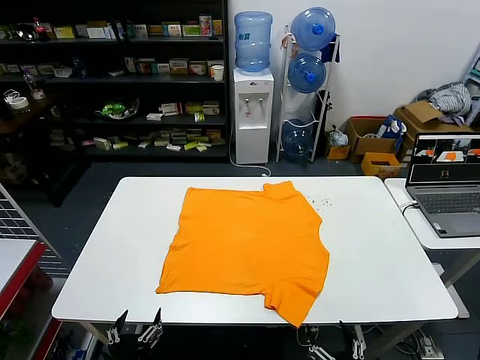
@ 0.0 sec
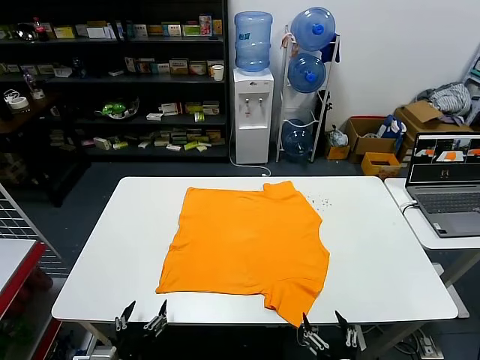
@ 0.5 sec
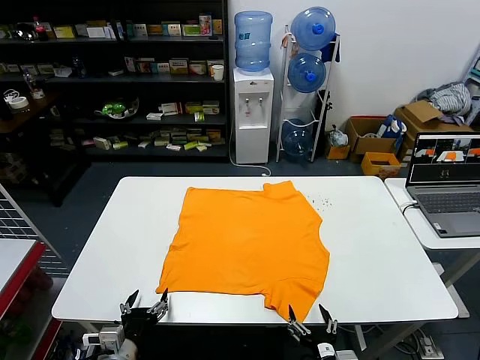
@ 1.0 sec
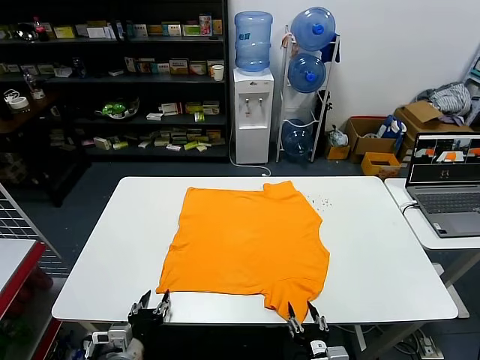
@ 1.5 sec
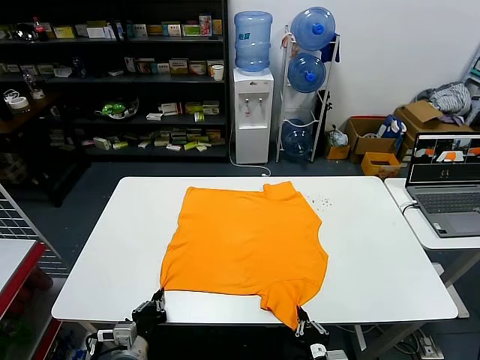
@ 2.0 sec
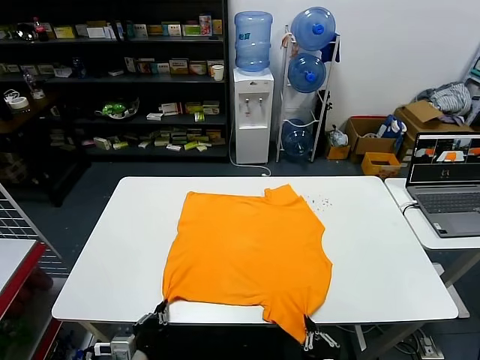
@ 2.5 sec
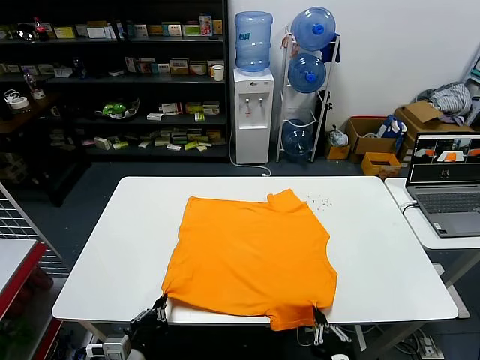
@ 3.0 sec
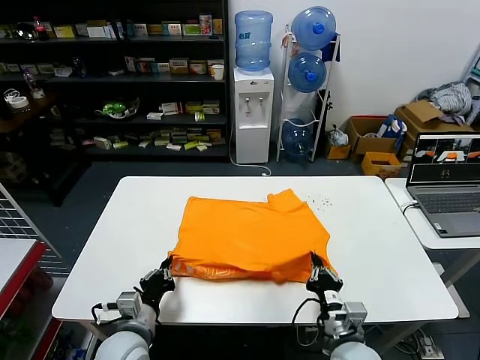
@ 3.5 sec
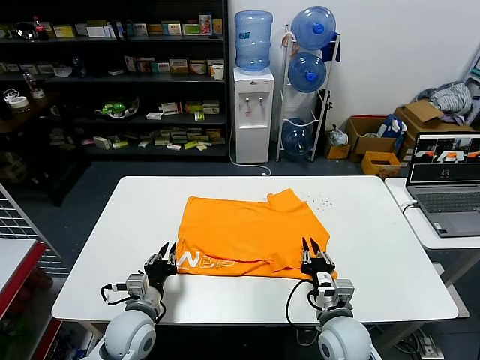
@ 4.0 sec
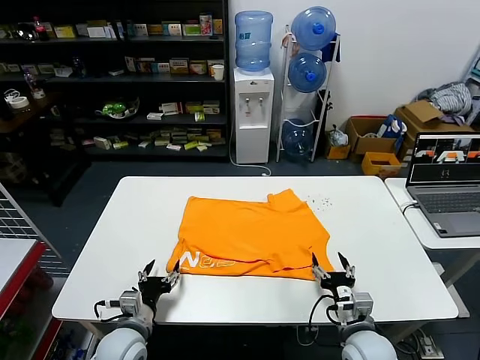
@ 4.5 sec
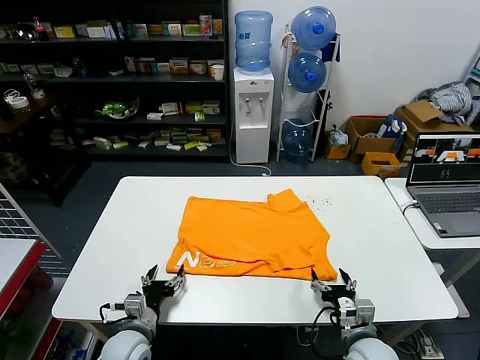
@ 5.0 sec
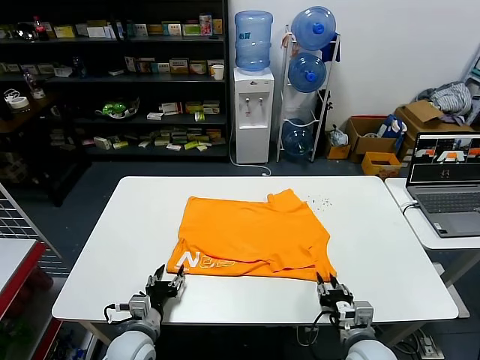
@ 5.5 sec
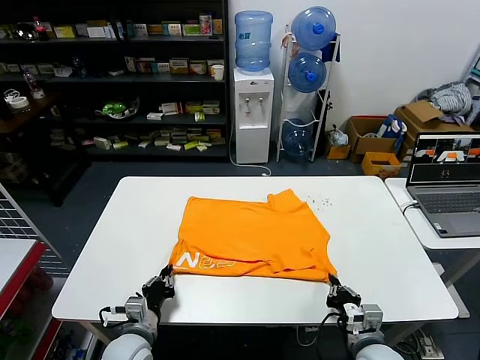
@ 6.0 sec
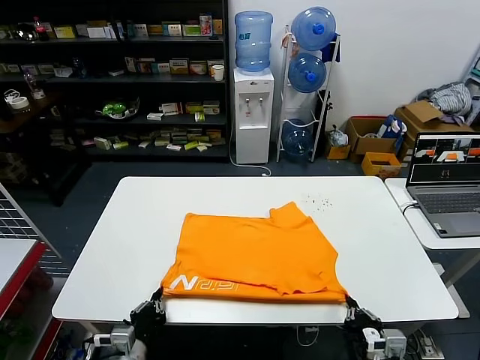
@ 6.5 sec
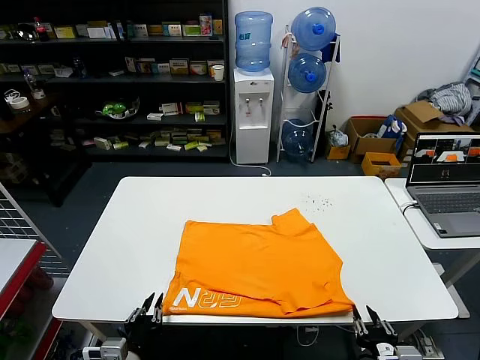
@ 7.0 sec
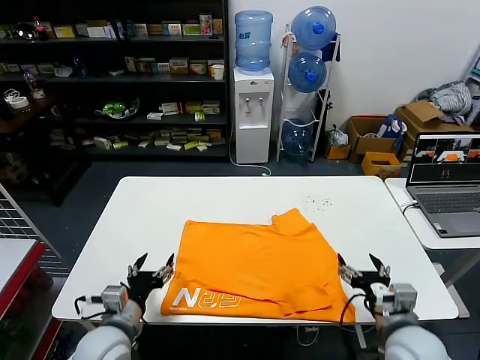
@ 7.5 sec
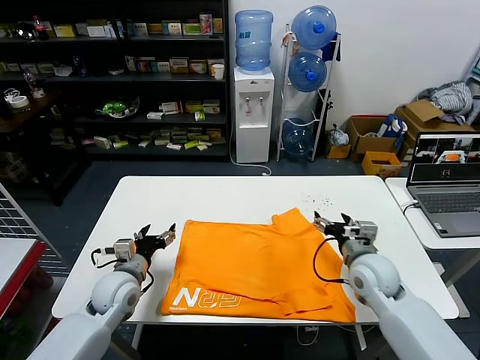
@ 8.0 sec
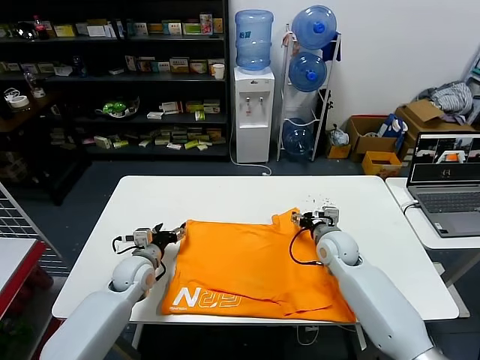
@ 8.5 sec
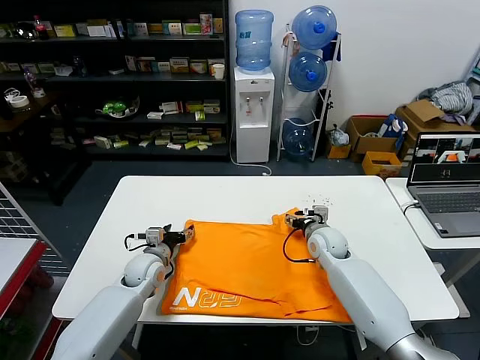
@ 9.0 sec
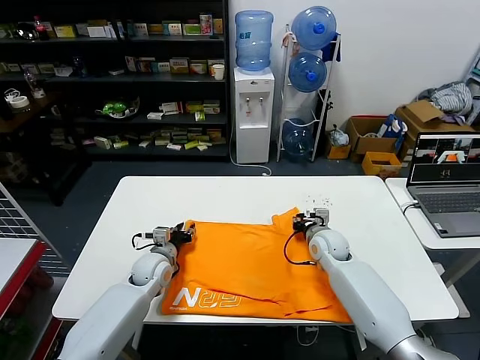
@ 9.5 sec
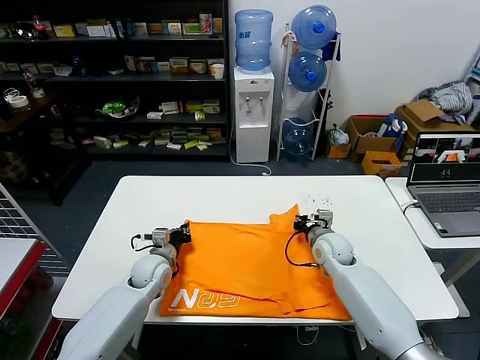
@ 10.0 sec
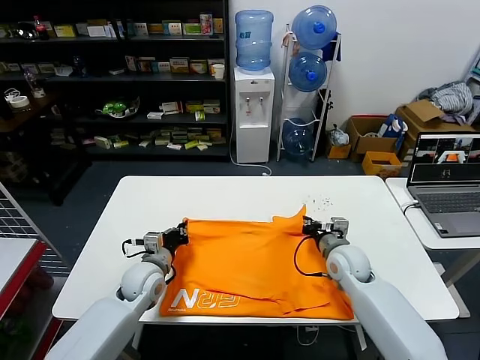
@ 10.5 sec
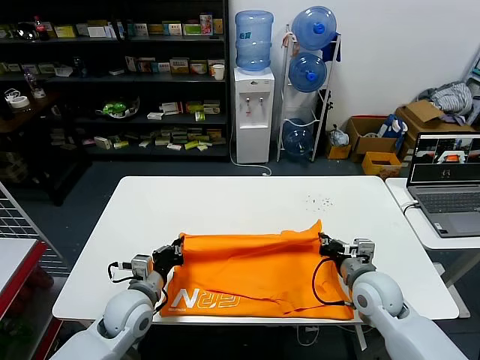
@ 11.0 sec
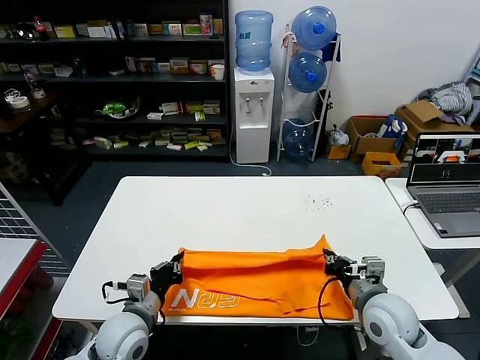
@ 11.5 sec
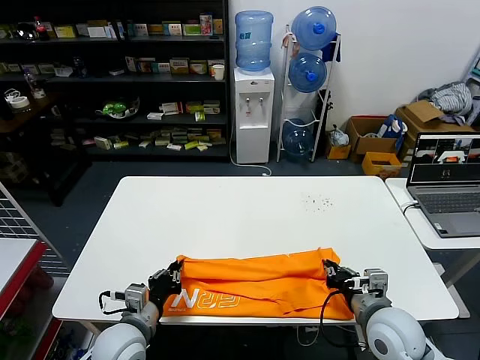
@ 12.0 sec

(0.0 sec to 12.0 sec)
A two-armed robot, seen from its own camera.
Task of the whole recording: fold and organize the clothes.
Step, 0.0 sec - 2.0 sec: use both grippers simultaneously to clamp the lower edge of the clothing fabric.
Step, 2.5 sec - 4.0 sec: use both grippers to drag the lower edge of the fabric forward and fold it over the upper edge.
Step, 4.5 sec - 7.0 sec: Drag the clothes downward with both gripper.
Step, 7.5 sec - 9.5 sec: use both grippers simultaneously to clamp the upper edge of the clothing fabric.
2.0 sec - 4.0 sec: Both grippers move forward, approximately 10 cm.
4.0 sec - 6.0 sec: The right gripper heads to the right and backward, covering some 10 cm, and opens, then closes once more, while the left gripper shifts by about 5 cm, and opens, then closes once more.
6.0 sec - 8.0 sec: The left gripper goes approximately 15 cm forward and upward, and opens its fingers. The right gripper heads forward and upward, covering approximately 20 cm, and opens its fingers.
8.0 sec - 10.0 sec: Both grippers move forward and downward, roughly 10 cm. The left gripper closes its fingers. The right gripper closes up.
10.0 sec - 12.0 sec: The grippers both shift backward by roughly 20 cm.

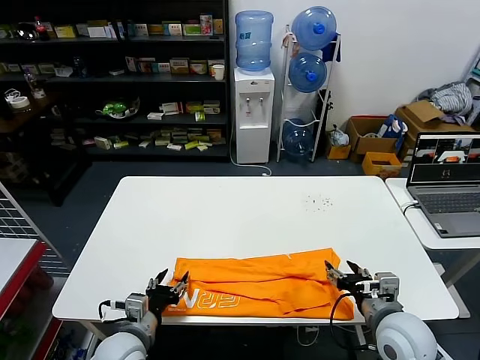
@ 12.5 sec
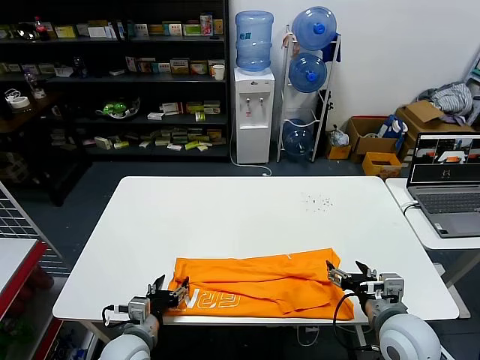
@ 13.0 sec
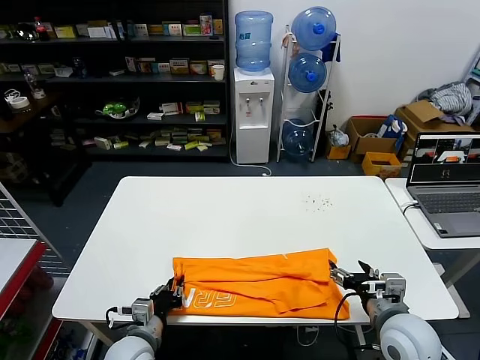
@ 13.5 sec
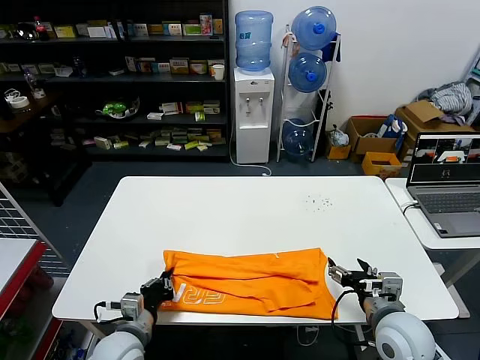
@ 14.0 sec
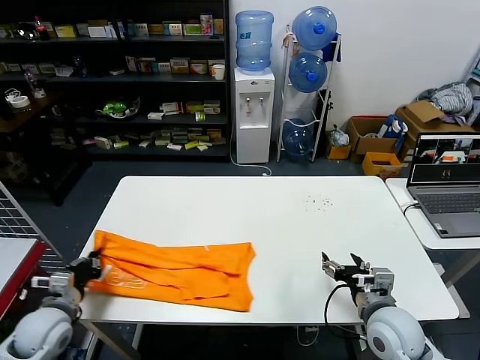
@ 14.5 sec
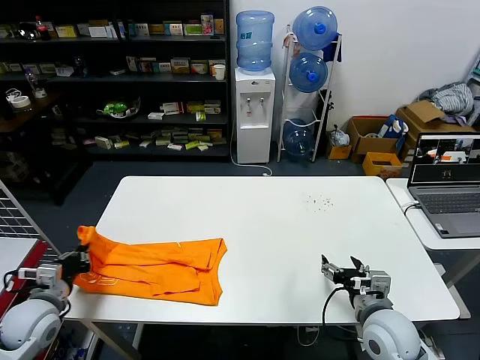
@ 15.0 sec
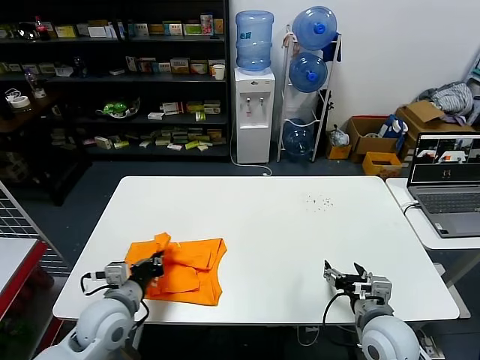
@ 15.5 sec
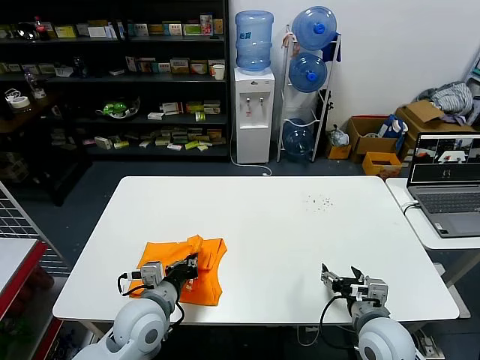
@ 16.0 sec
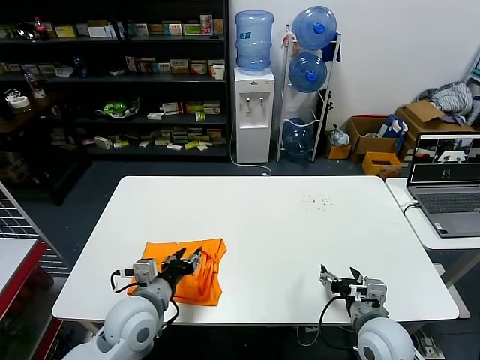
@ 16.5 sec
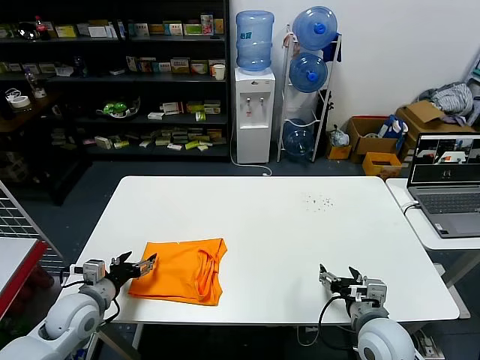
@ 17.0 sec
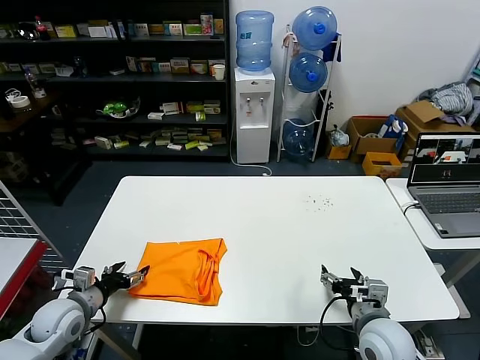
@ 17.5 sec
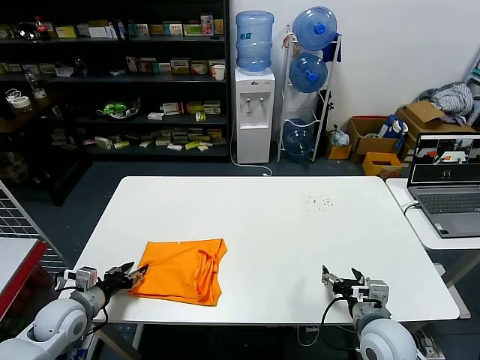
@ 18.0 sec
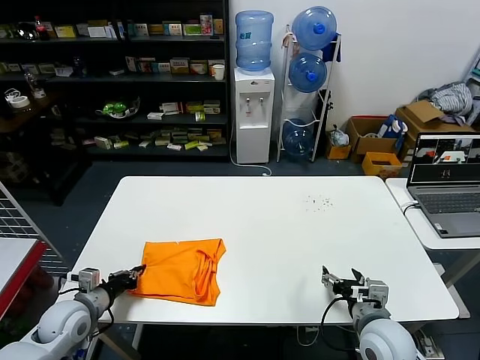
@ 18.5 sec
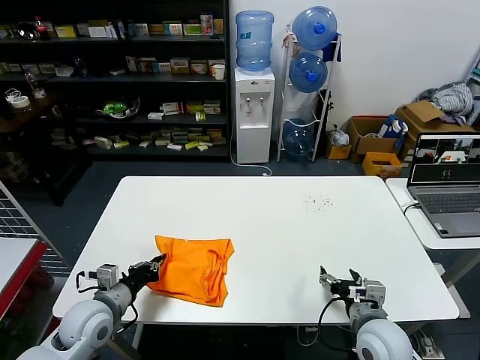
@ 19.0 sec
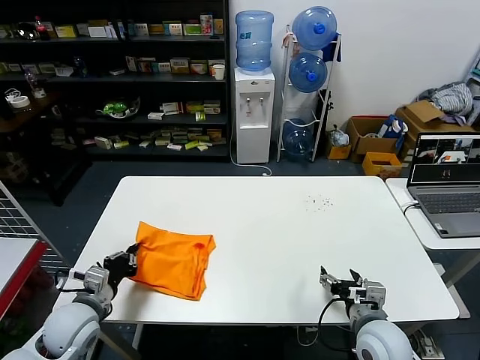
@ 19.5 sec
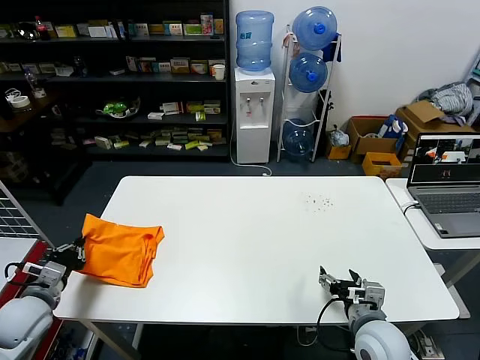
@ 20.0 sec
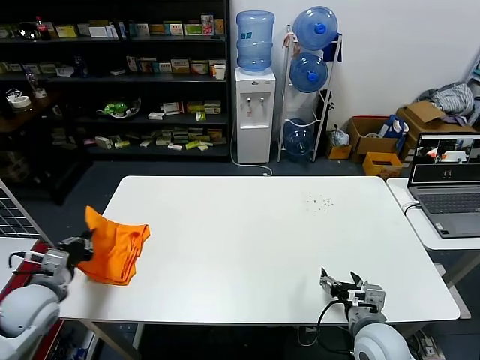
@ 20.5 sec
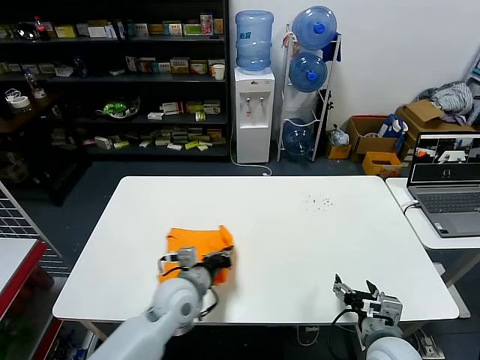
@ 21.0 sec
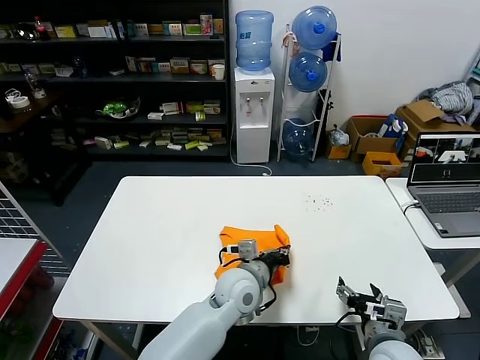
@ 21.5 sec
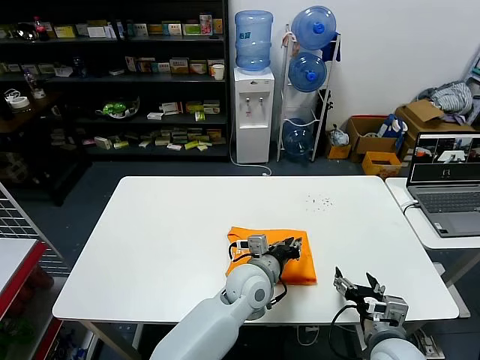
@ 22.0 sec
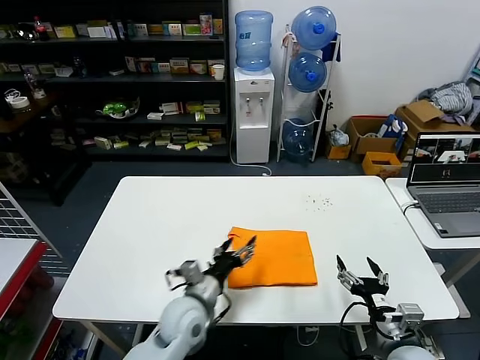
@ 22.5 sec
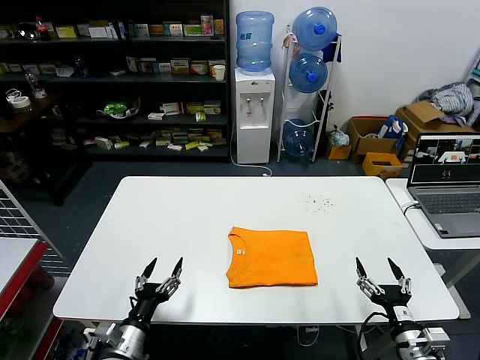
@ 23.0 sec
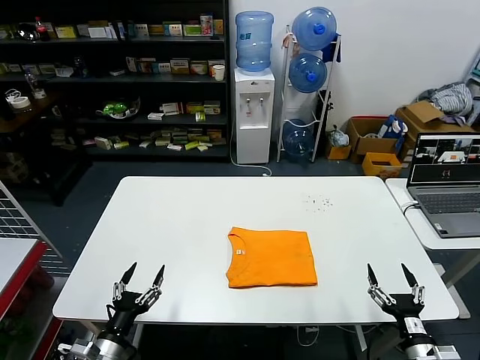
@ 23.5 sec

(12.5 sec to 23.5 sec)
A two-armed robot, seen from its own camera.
Task of the whole recording: fold and organize the clothes.
Step, 12.5 sec - 13.5 sec: use the left gripper to clamp the left edge of the fabric.
Step, 14.0 sec - 16.0 sec: use the left gripper to drag the left edge of the fabric to the left and folds it over the right edge.
Step, 17.0 sec - 22.0 sec: Flip the folded clothes over with left gripper.
12.5 sec - 14.5 sec: The left gripper goes approximately 15 cm to the left, and closes up.
14.5 sec - 16.0 sec: The left gripper goes roughly 20 cm to the right.
16.0 sec - 18.0 sec: The left gripper goes roughly 20 cm to the left, and opens.
18.0 sec - 20.0 sec: The left gripper moves approximately 5 cm to the right and comes back, and closes.
20.0 sec - 21.5 sec: The left gripper travels to the right by some 40 cm.
21.5 sec - 23.5 sec: The left gripper travels to the left and backward by roughly 35 cm, and opens its fingers. Meanwhile the right gripper is displaced to the right and backward by approximately 10 cm.
